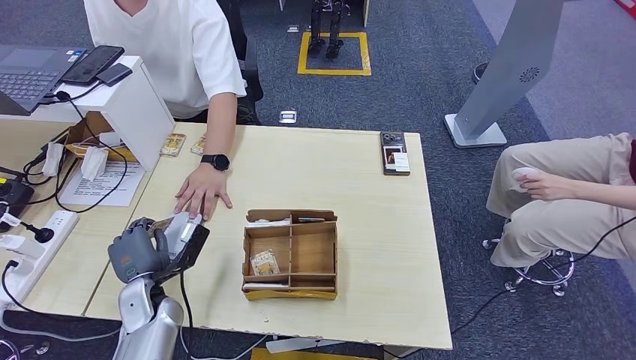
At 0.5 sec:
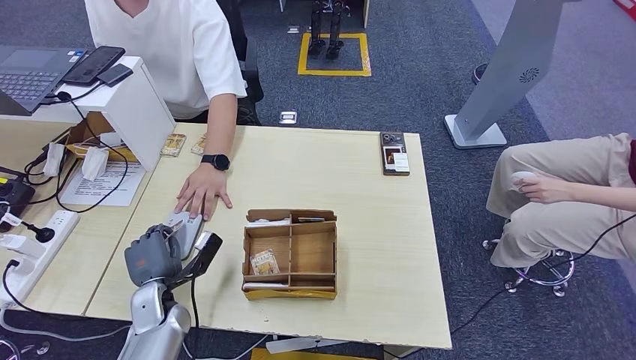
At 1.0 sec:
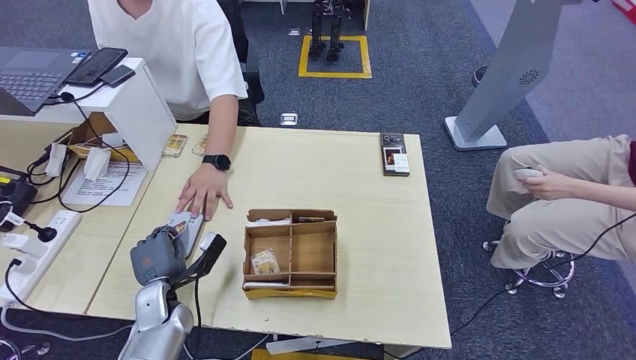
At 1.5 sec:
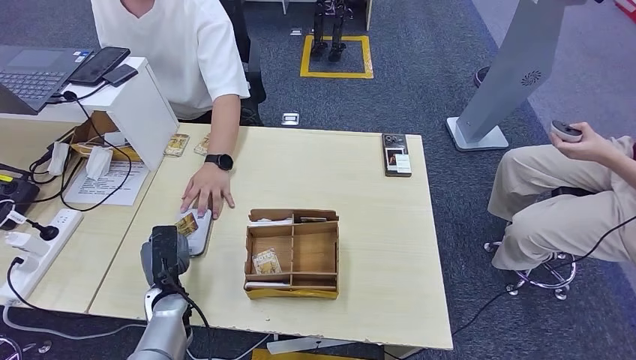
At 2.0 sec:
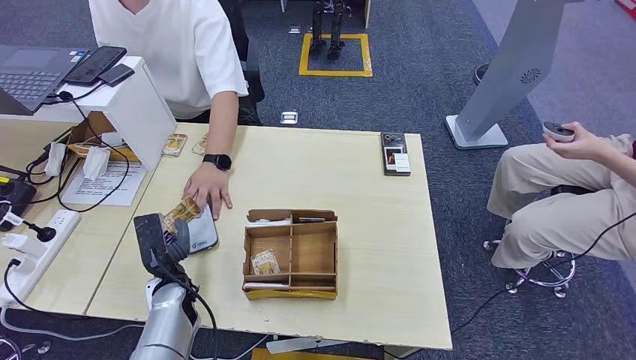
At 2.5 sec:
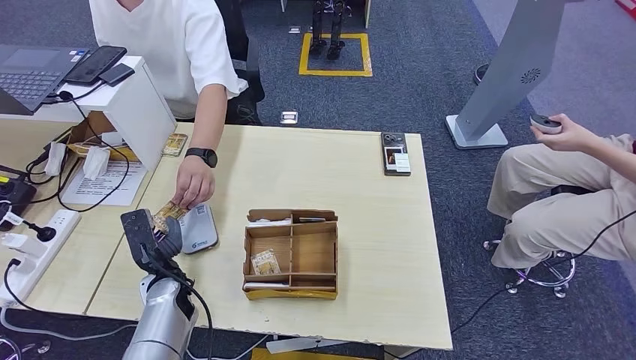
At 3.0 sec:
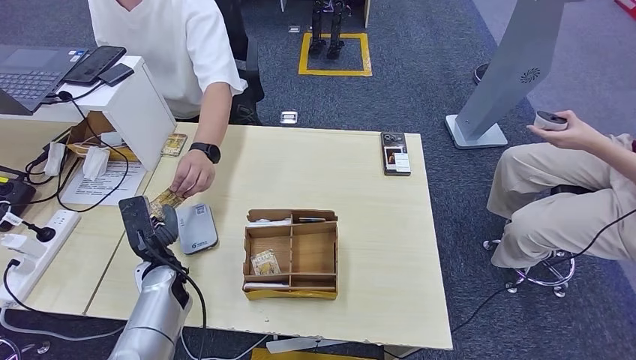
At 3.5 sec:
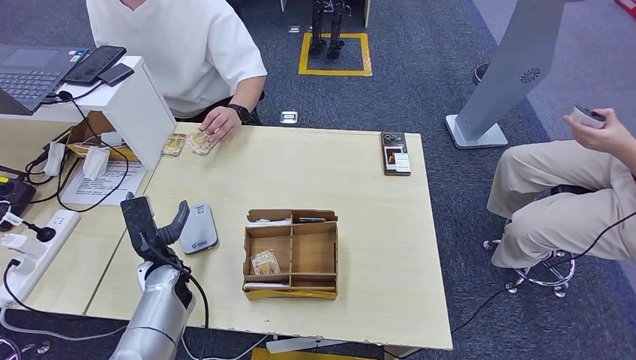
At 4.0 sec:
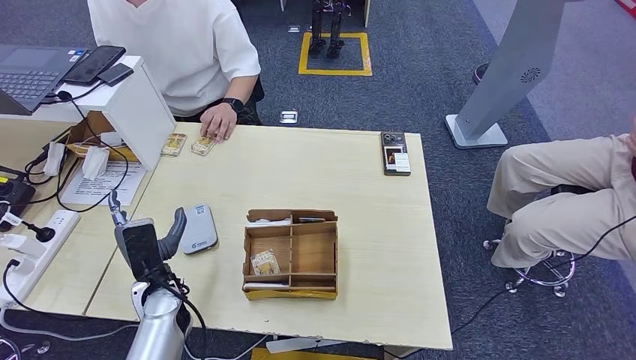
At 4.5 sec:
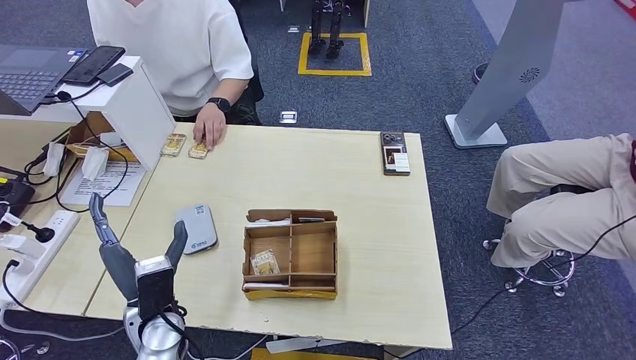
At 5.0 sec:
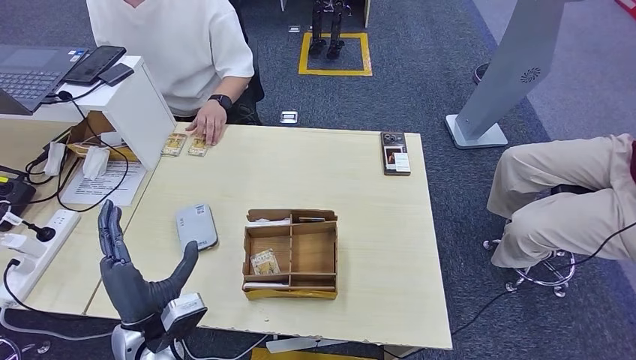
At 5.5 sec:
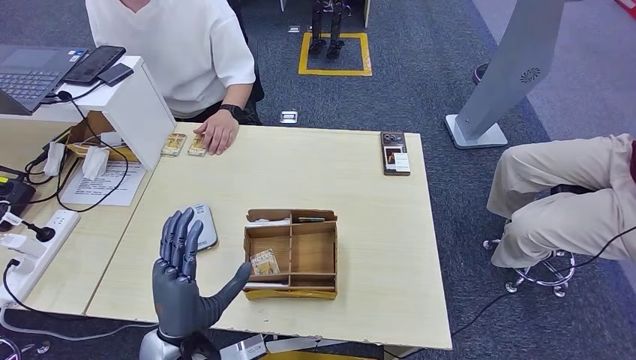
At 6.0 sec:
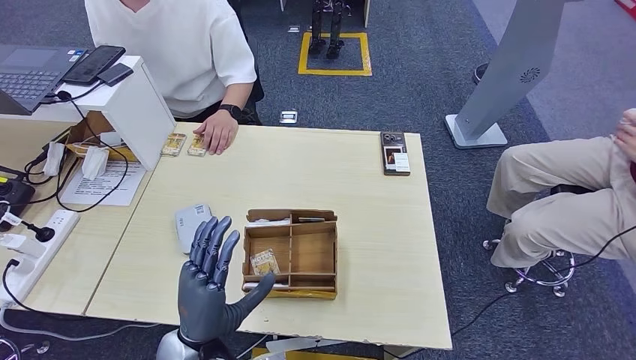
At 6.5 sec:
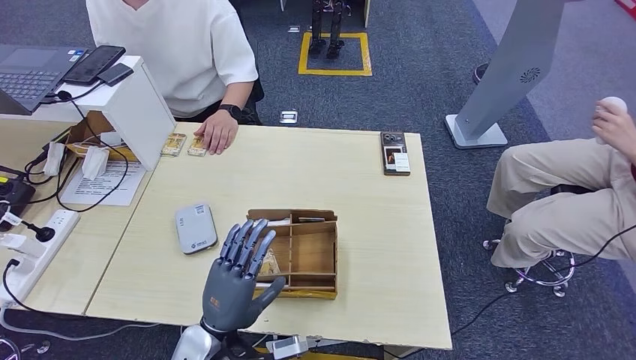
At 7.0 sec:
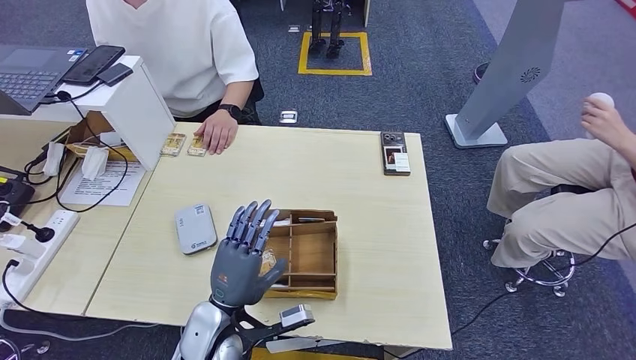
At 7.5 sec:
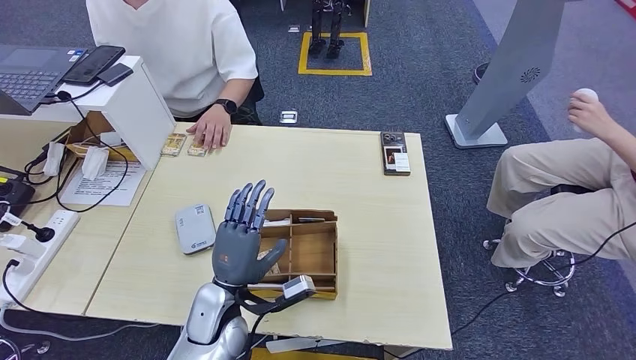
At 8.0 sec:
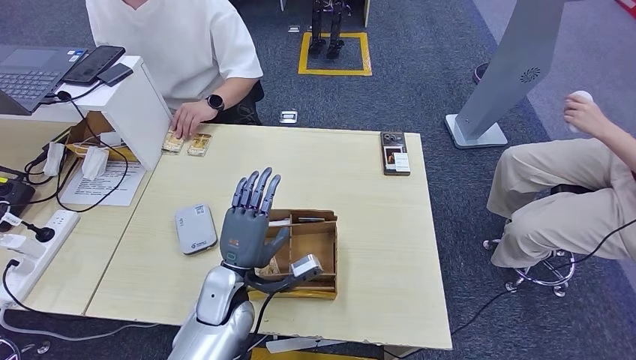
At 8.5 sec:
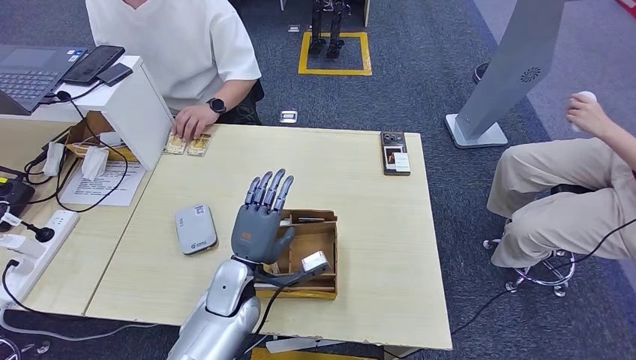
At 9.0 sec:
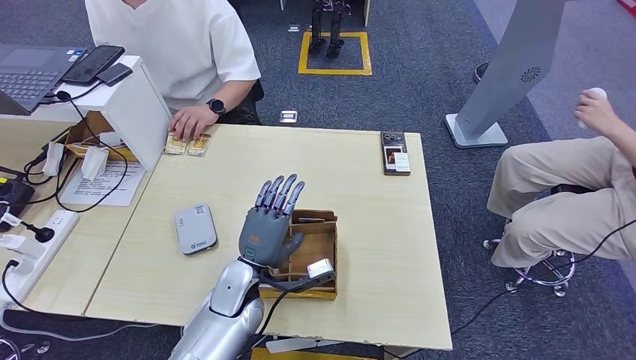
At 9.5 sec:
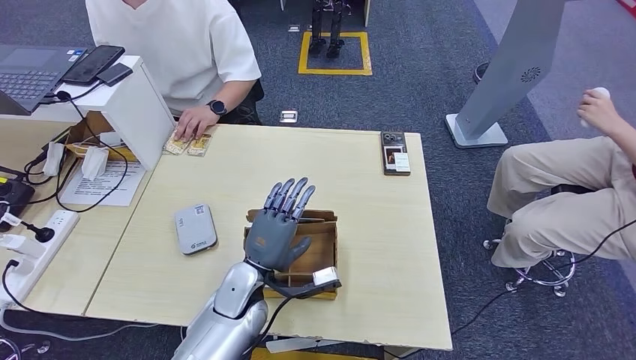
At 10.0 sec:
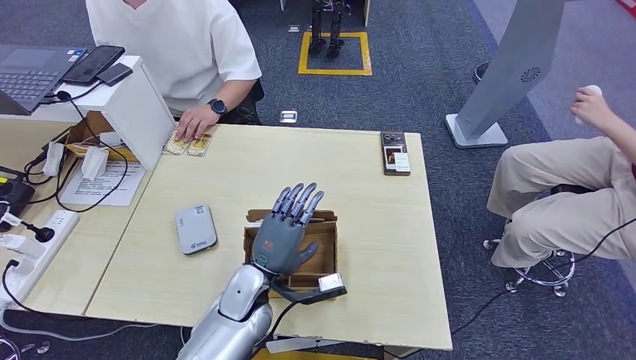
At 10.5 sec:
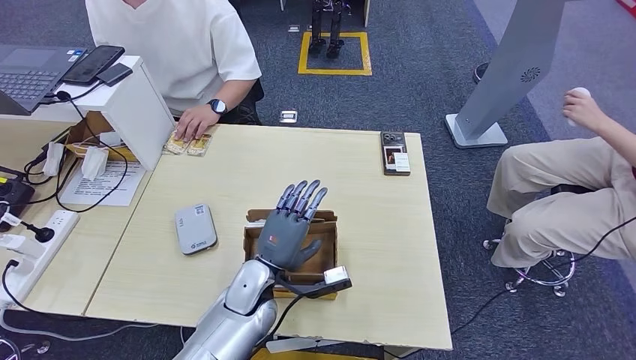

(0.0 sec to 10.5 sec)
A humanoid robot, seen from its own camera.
Step, 1.5 sec - 3.5 sec: Hand the ID card to the person.
4.0 sec - 6.5 sec: The left hand heads backward and to the right, covering approximately 15 cm.
6.5 sec - 8.5 sec: The left hand shifts approximately 10 cm forward.
8.5 sec - 10.5 sec: The hands move only a little.

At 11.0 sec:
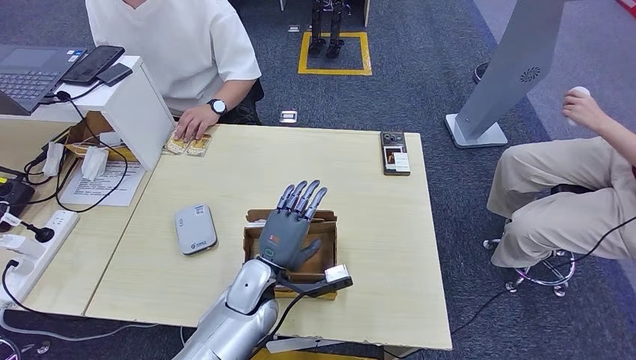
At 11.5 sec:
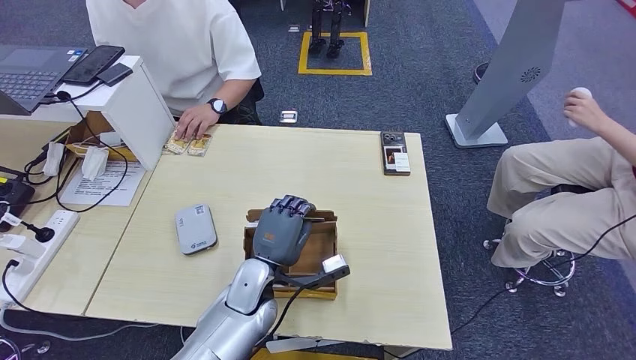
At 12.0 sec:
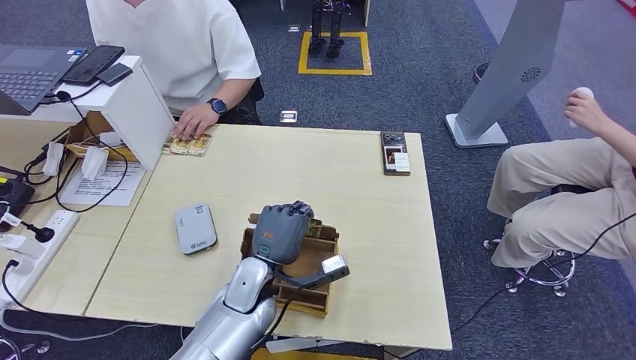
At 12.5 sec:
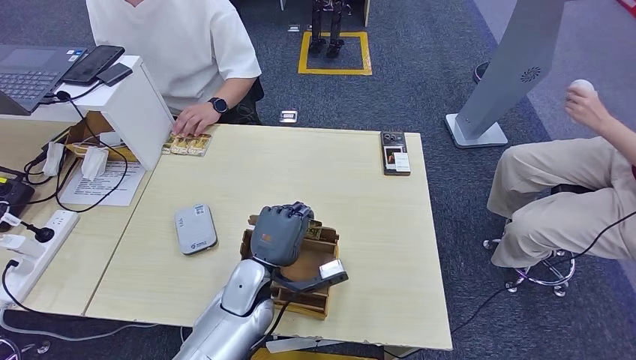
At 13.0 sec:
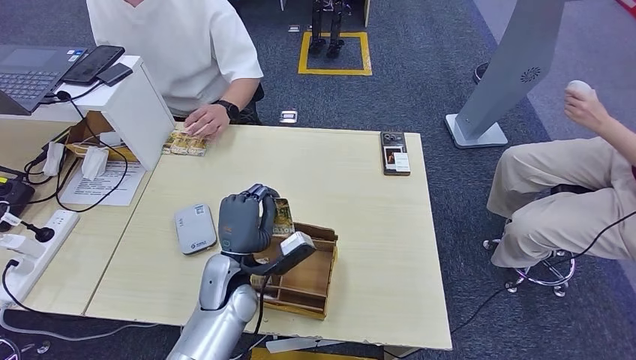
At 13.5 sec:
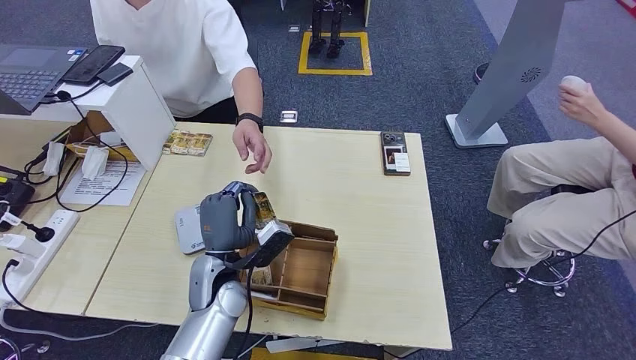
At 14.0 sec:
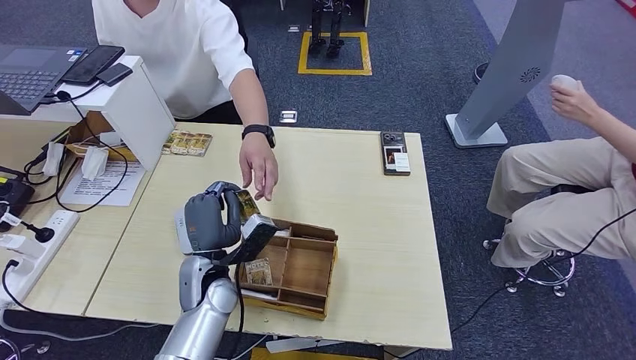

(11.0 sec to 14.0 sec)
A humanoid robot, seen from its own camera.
Step, 11.0 sec - 13.0 sec: Pick up the room key from the key card box.
Step, 13.5 sec - 14.0 sec: Hand the room key to the person.
11.0 sec - 12.5 sec: Neither hand changes place.
12.5 sec - 14.0 sec: The left hand is displaced to the left by about 5 cm.
